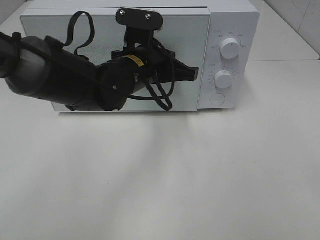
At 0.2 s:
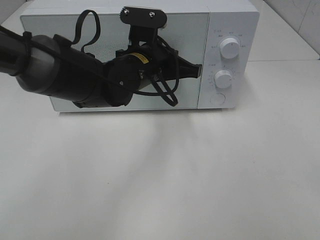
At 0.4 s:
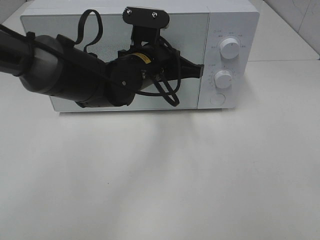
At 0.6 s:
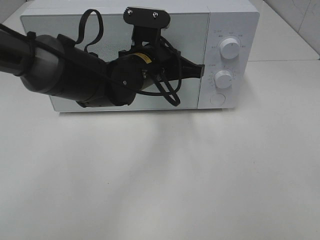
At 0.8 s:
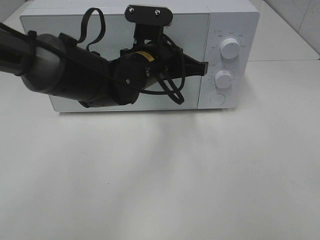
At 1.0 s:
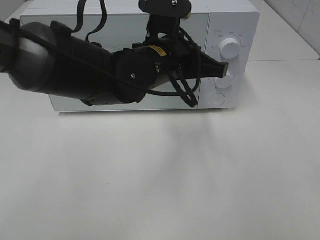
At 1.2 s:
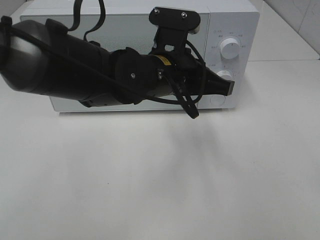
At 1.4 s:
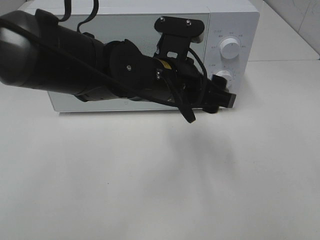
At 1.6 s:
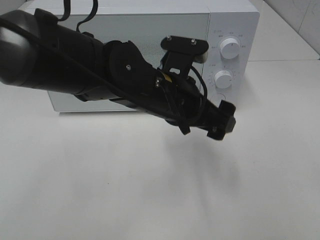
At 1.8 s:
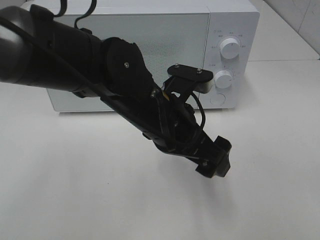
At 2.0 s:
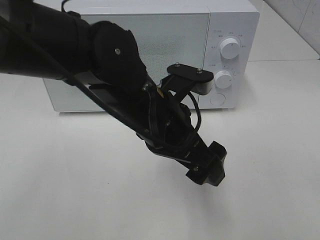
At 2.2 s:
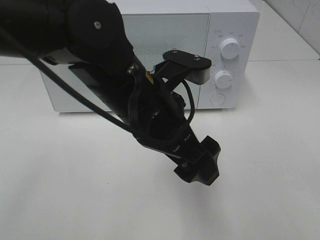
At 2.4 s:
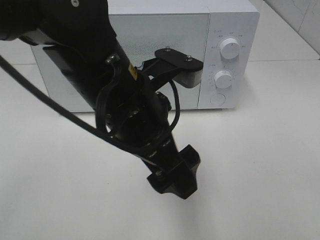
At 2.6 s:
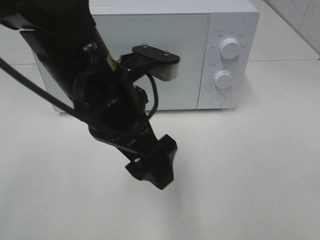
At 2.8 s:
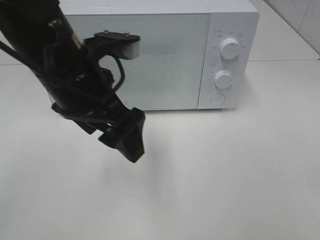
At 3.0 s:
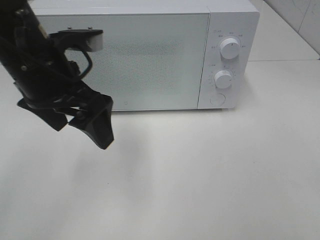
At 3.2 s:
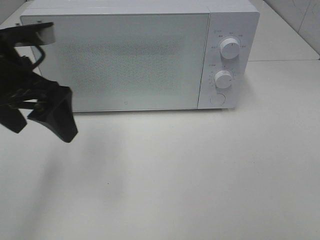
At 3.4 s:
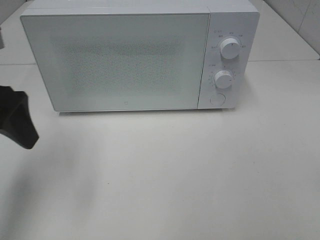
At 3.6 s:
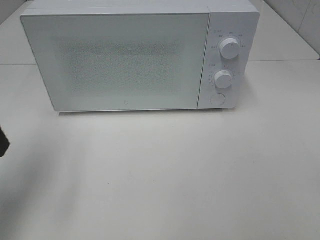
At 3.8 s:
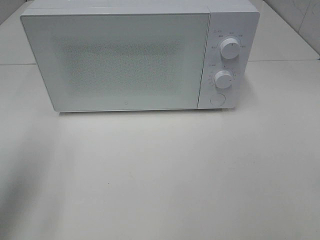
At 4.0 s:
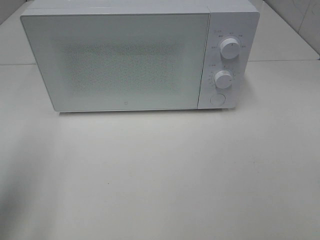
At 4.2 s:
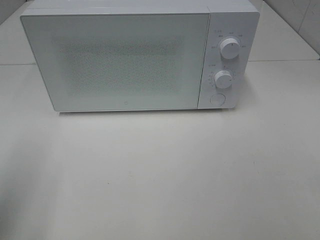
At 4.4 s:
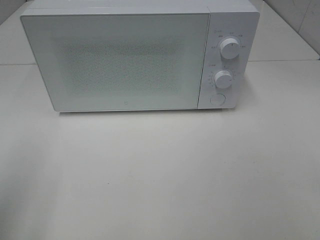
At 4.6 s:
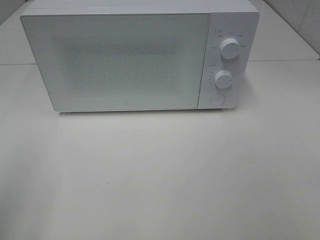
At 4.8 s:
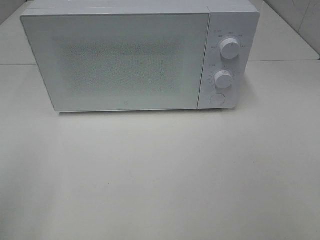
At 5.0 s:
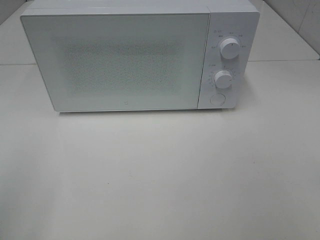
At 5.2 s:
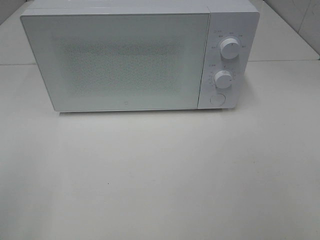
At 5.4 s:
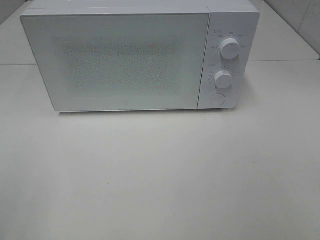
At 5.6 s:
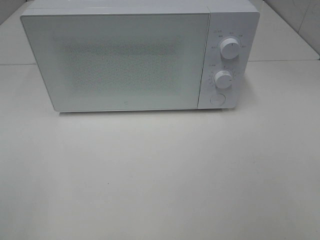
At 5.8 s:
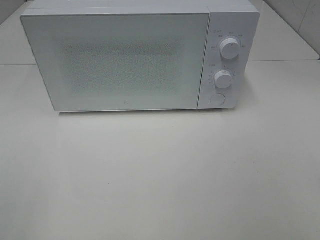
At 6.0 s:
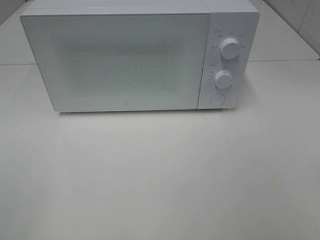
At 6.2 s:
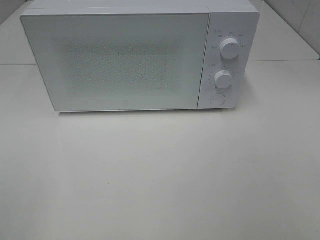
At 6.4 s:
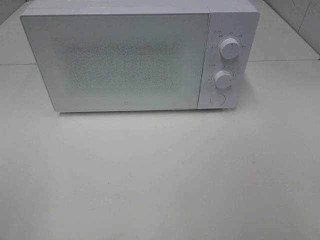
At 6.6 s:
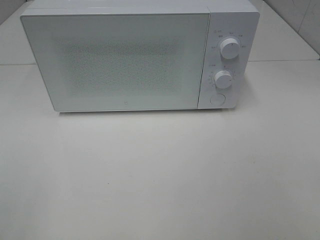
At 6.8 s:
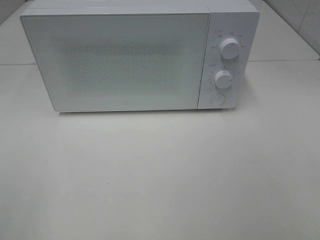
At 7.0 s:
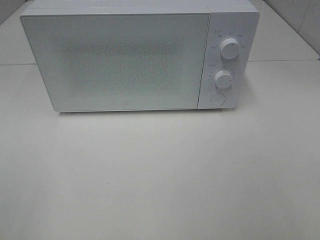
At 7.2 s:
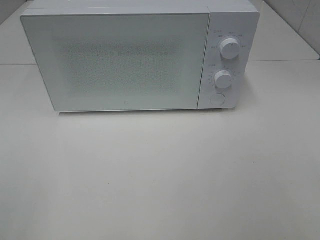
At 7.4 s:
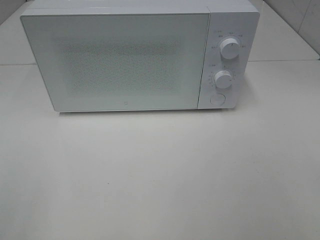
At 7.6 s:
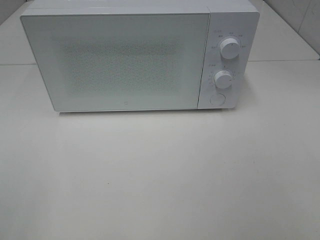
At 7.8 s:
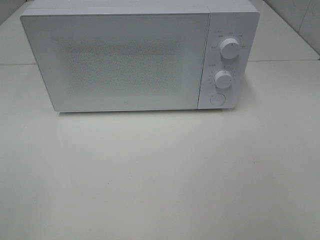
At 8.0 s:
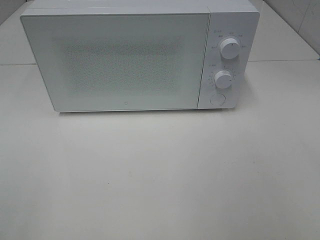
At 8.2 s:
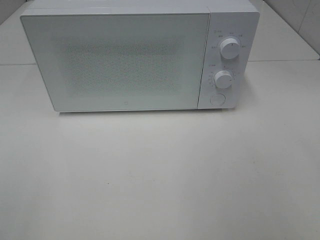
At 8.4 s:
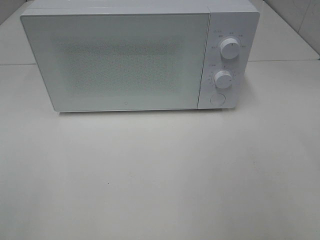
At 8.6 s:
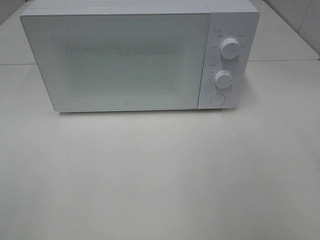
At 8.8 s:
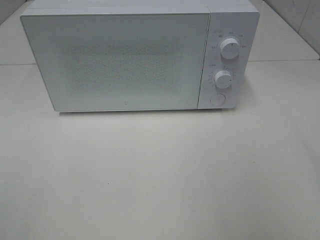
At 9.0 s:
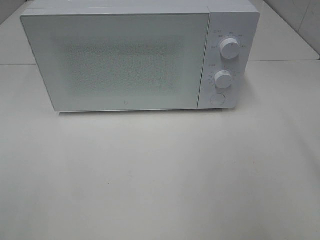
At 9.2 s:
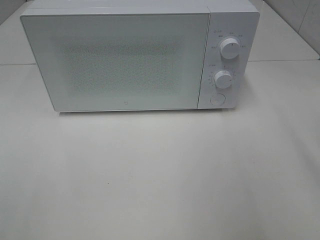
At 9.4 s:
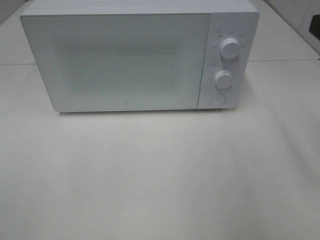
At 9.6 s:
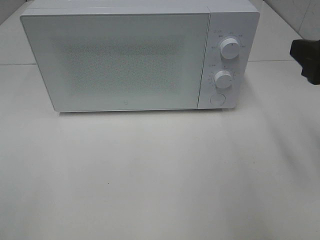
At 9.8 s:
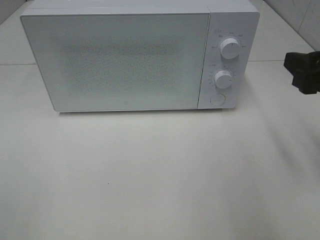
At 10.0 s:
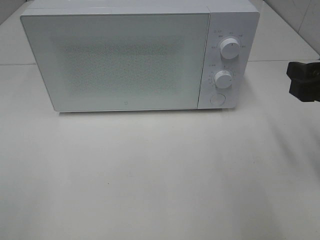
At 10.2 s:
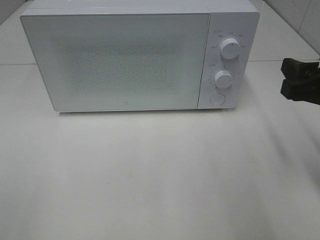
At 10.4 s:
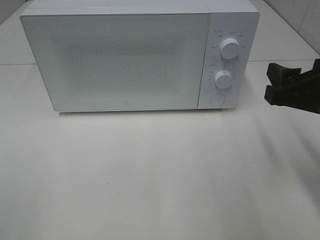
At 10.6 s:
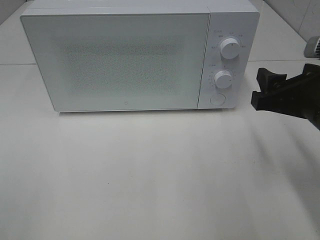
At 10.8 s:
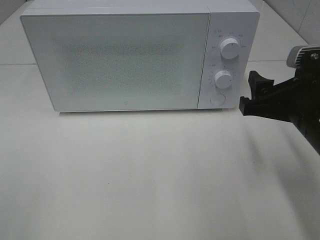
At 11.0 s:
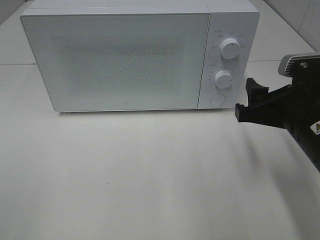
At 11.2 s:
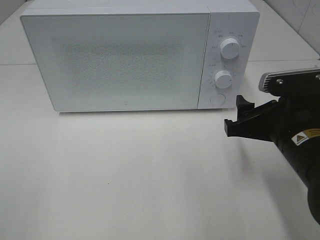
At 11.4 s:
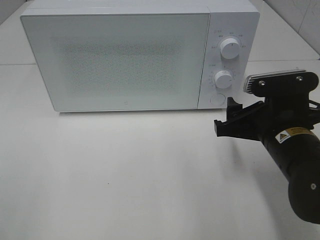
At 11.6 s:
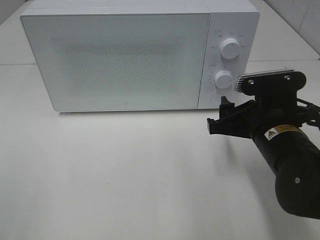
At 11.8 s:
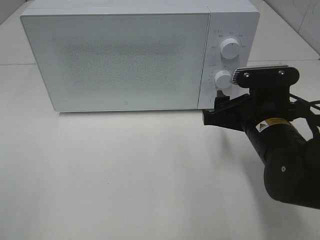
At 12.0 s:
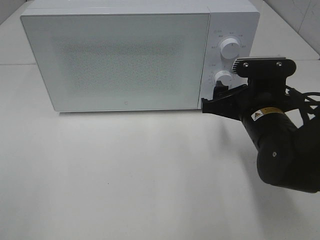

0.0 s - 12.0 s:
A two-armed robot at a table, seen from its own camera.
Task of the whole recording: Heat the burger.
0.0 s - 1.6 s: The left gripper goes approximately 10 cm backward, and opens up.
1.6 s - 3.0 s: The left gripper moves to the left and upward, about 15 cm.
3.0 s - 4.4 s: The left gripper heads backward and to the left, covering roughly 25 cm.
6.0 s - 7.6 s: Neither gripper changes place.
9.0 s - 10.4 s: The right gripper moves downward and forward, roughly 10 cm.
10.4 s - 12.0 s: The right gripper heads to the left, downward and forward, covering about 10 cm.

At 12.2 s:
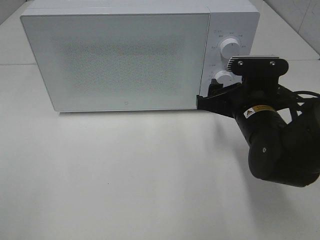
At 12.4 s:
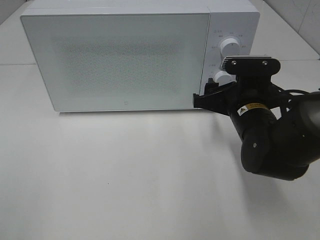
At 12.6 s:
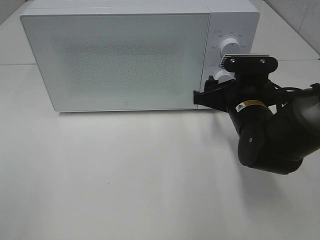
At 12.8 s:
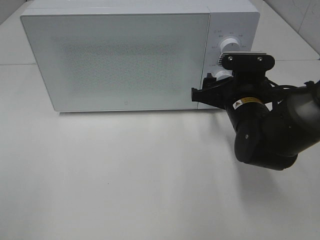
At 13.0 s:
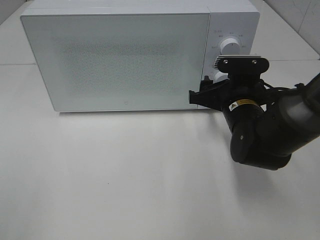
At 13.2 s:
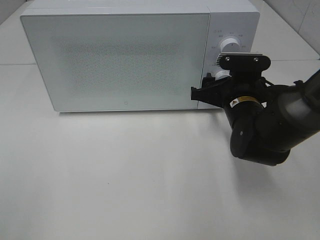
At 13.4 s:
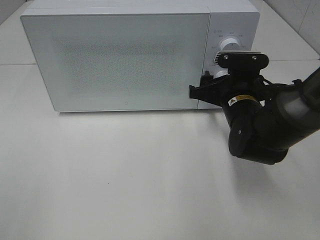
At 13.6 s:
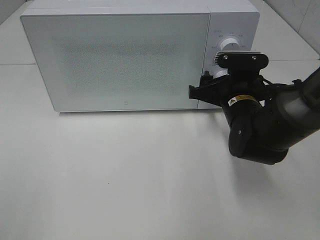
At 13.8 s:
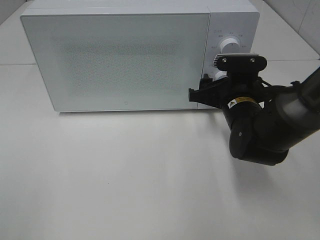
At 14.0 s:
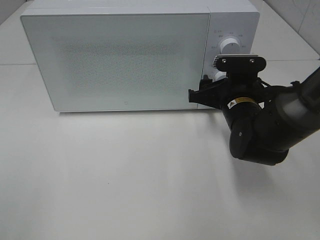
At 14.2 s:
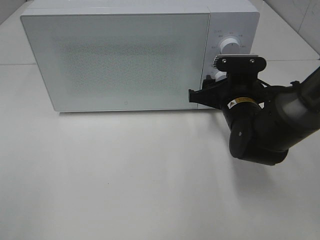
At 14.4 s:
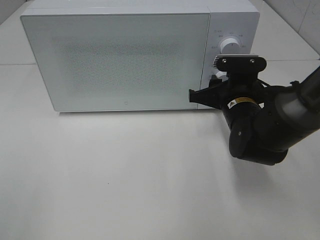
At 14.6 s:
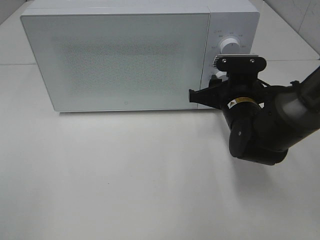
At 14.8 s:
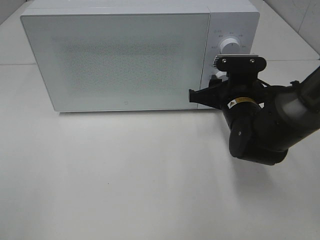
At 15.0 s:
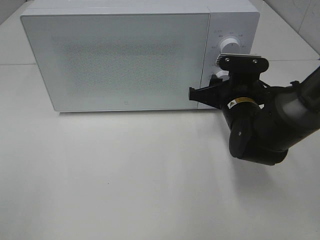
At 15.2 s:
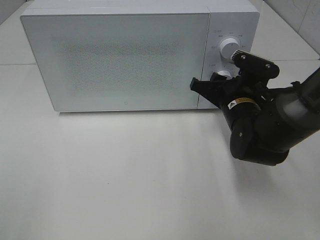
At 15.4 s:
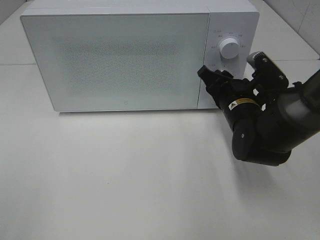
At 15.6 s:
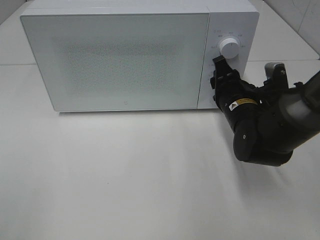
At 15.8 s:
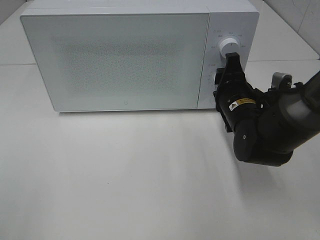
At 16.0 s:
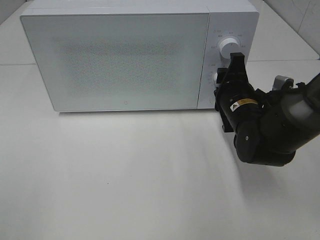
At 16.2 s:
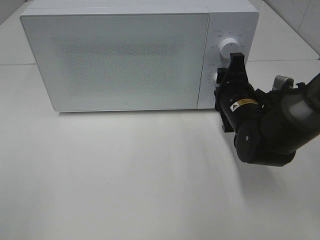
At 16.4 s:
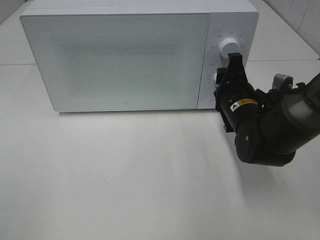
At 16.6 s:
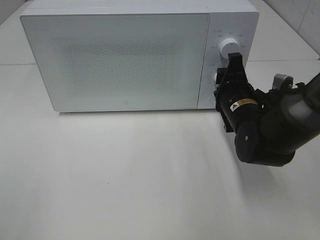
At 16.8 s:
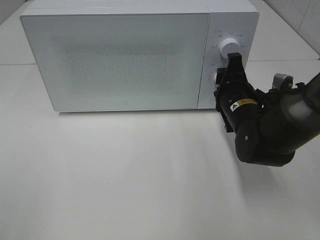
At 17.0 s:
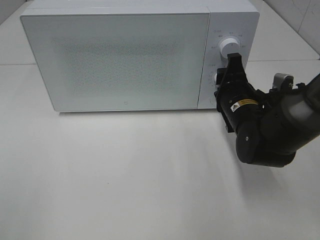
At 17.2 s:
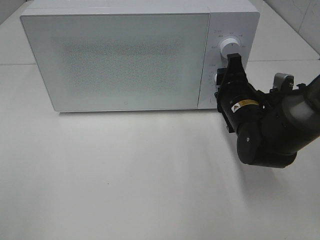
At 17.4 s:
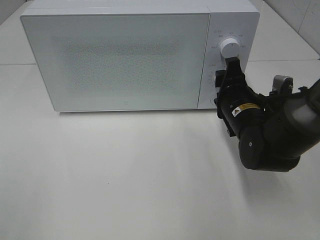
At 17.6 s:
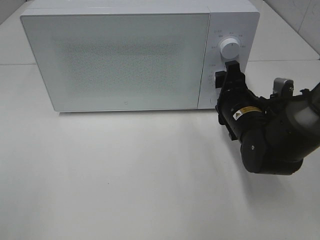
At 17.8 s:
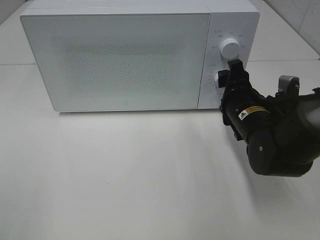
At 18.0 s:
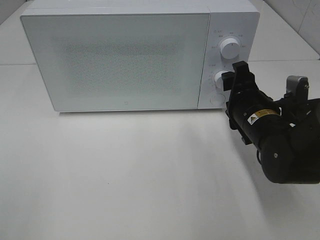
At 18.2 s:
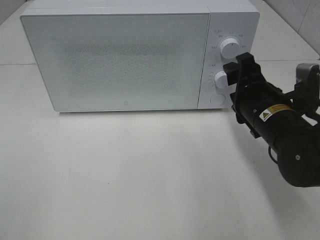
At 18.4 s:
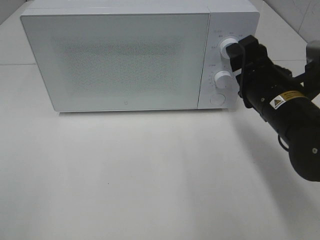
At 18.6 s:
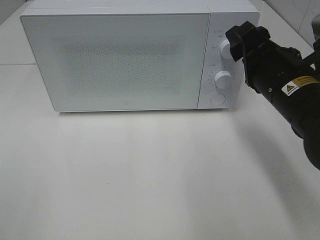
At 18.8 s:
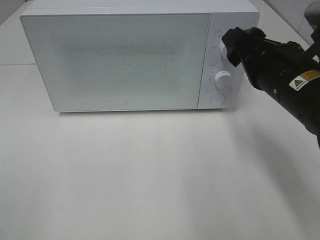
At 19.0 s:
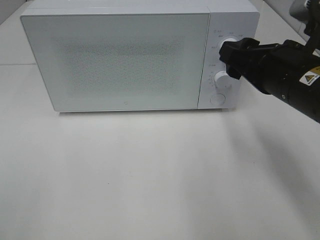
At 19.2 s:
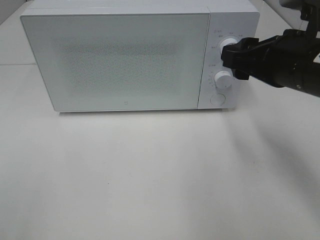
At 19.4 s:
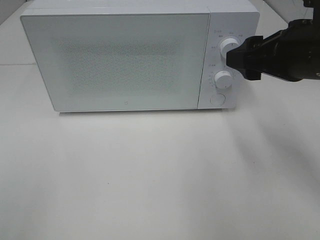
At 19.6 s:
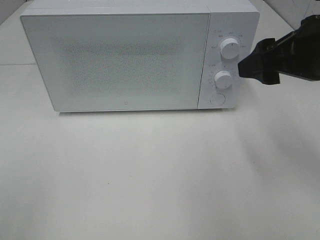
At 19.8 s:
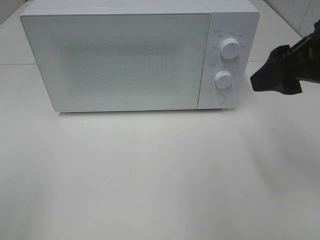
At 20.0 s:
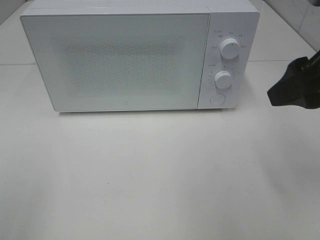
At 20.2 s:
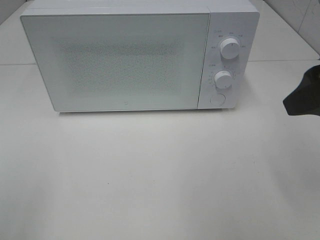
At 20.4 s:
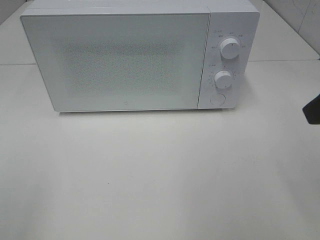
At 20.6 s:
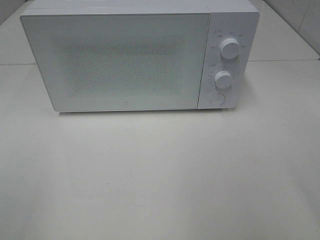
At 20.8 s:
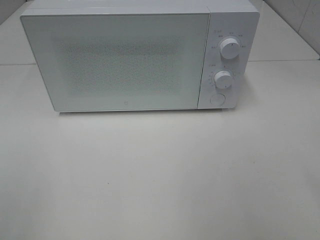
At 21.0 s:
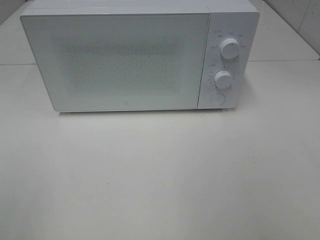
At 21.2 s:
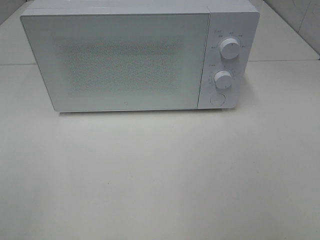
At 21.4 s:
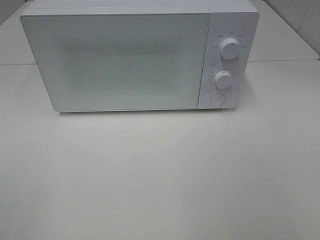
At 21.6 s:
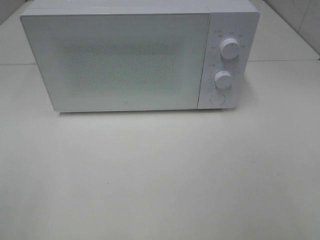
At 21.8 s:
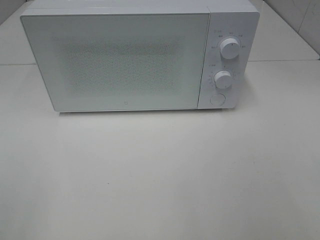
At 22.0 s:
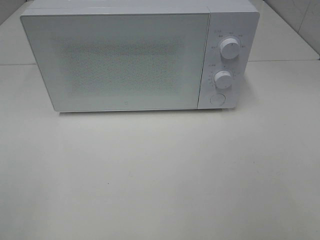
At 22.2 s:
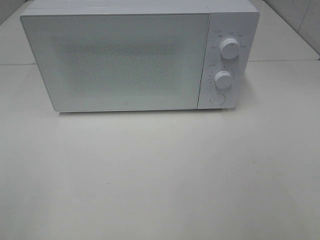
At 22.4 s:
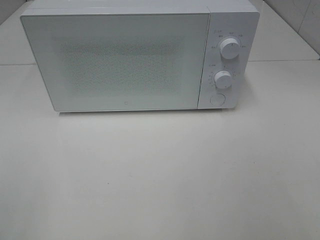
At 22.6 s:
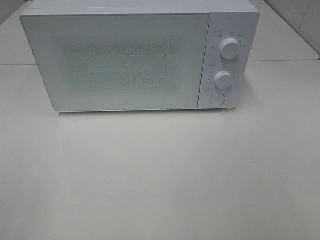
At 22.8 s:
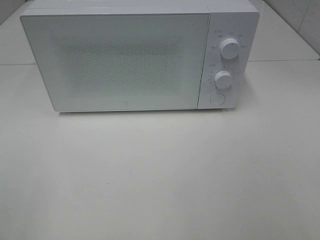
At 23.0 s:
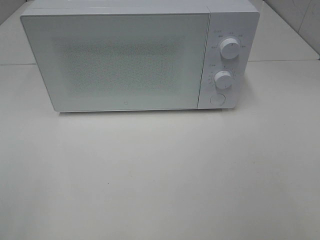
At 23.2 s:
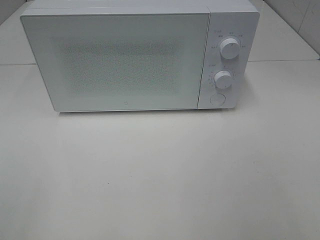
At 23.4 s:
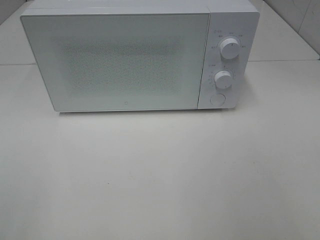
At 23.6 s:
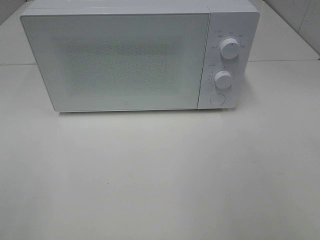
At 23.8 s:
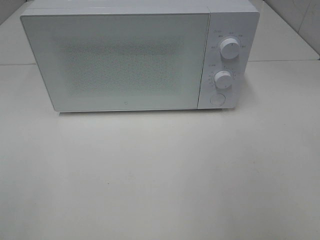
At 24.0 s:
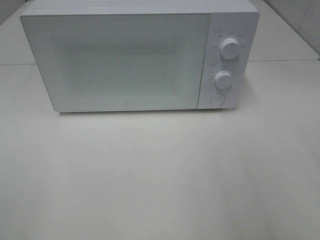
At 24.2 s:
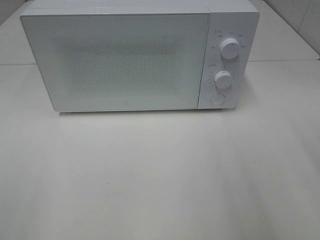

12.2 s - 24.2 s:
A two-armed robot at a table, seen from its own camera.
Task of the whole recording: Heat the burger.
Step, 12.2 s - 17.4 s: Right hand: twist timer button.
12.2 s - 13.8 s: The right gripper changes place by some 5 cm.
13.8 s - 15.2 s: The right gripper closes.
16.6 s - 18.2 s: The right gripper is displaced backward by about 5 cm.
18.2 s - 19.8 s: The right gripper heads upward, covering some 15 cm.
19.8 s - 21.2 s: The right gripper is displaced backward and to the right by some 20 cm.
